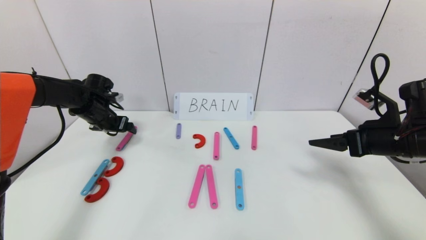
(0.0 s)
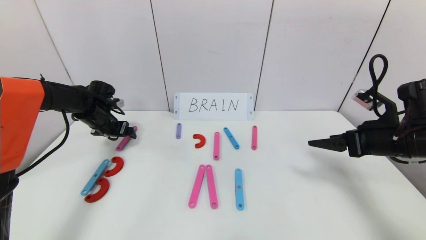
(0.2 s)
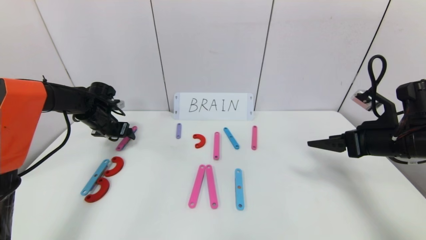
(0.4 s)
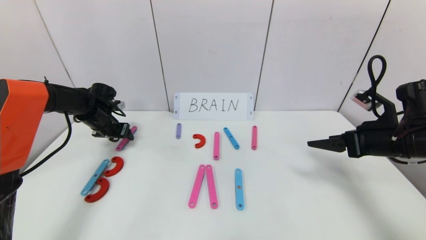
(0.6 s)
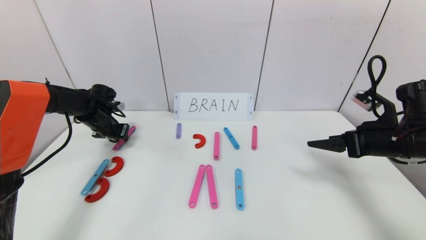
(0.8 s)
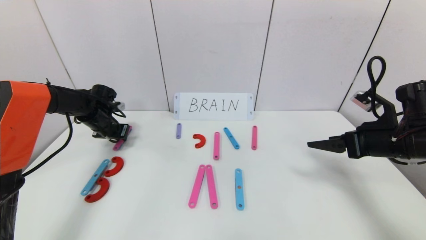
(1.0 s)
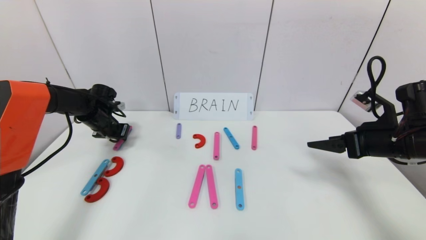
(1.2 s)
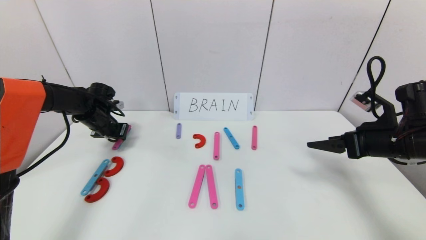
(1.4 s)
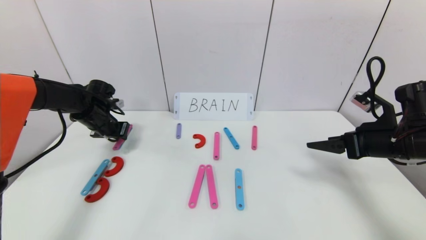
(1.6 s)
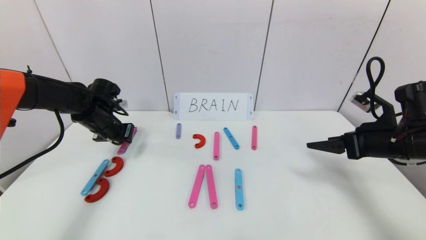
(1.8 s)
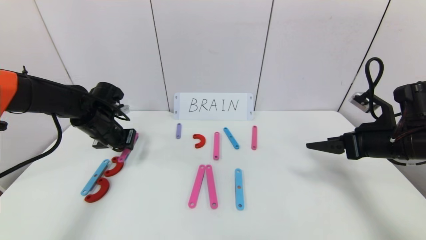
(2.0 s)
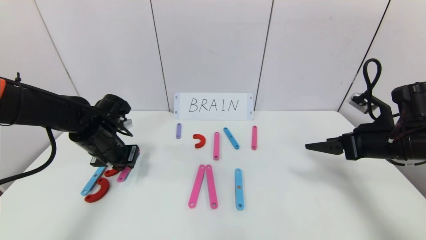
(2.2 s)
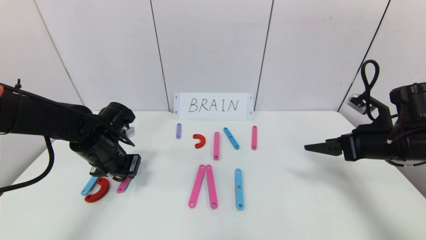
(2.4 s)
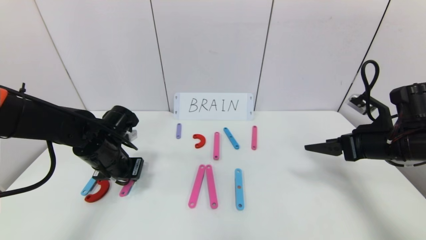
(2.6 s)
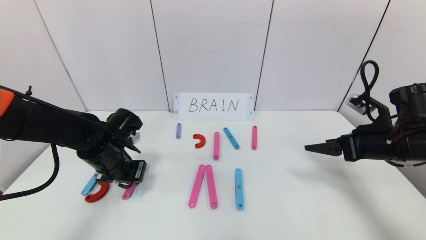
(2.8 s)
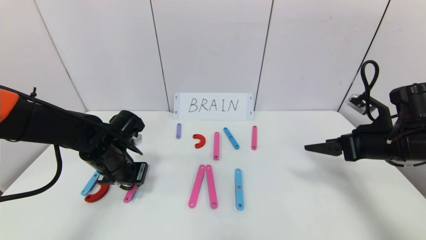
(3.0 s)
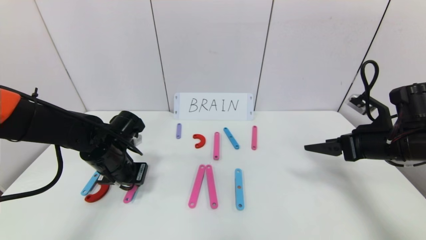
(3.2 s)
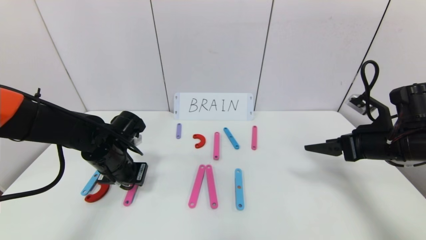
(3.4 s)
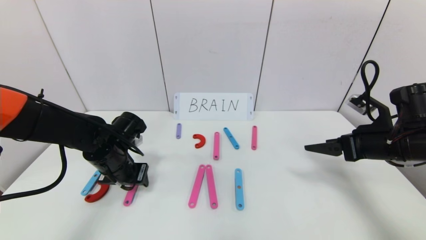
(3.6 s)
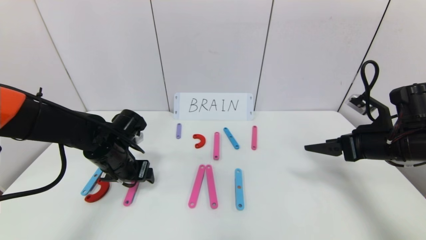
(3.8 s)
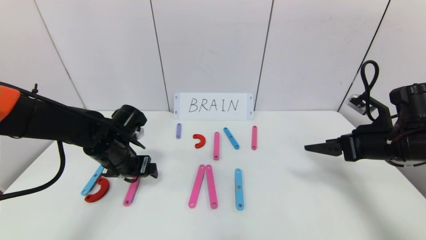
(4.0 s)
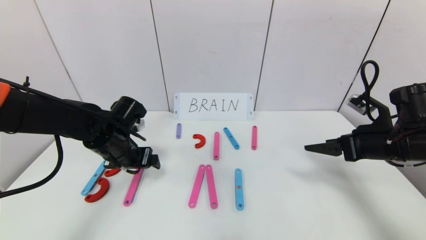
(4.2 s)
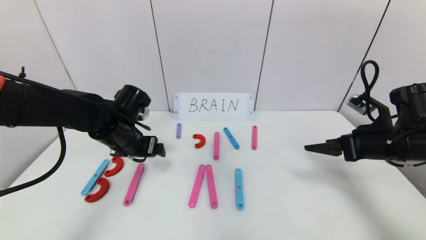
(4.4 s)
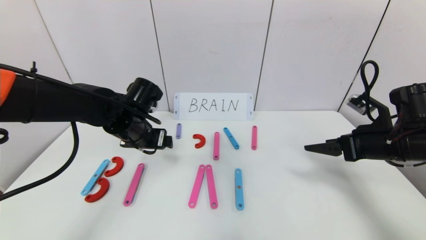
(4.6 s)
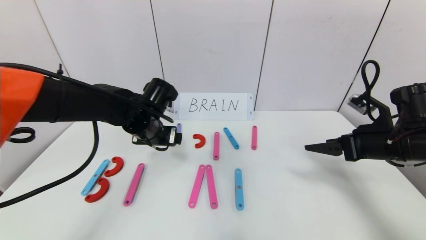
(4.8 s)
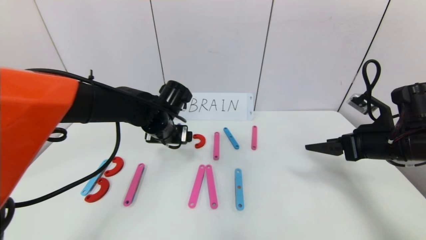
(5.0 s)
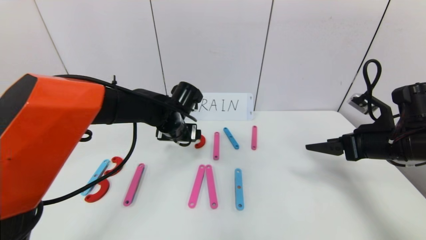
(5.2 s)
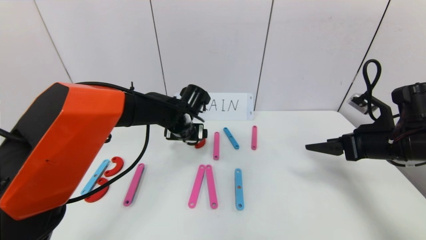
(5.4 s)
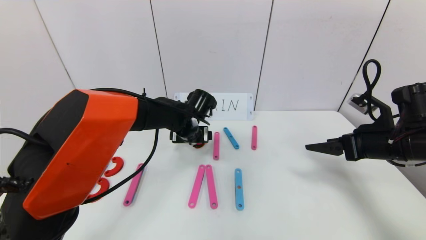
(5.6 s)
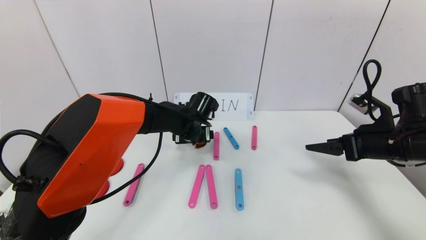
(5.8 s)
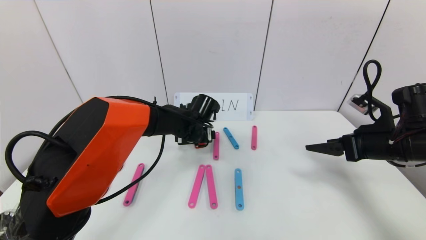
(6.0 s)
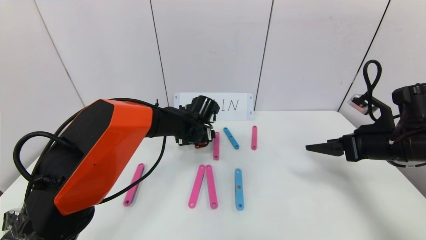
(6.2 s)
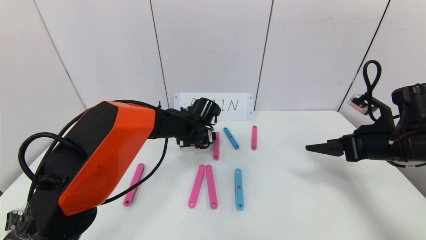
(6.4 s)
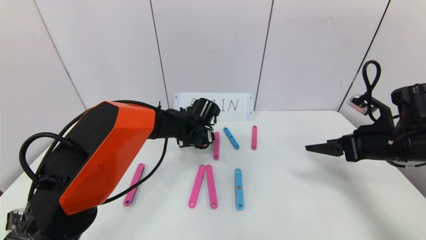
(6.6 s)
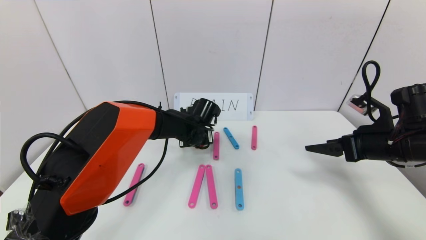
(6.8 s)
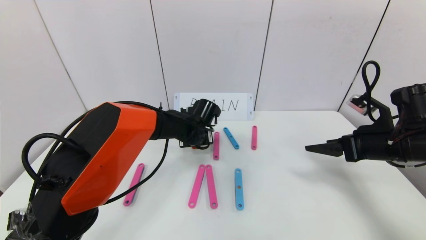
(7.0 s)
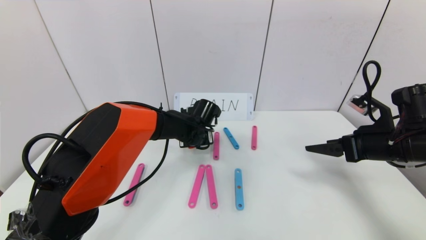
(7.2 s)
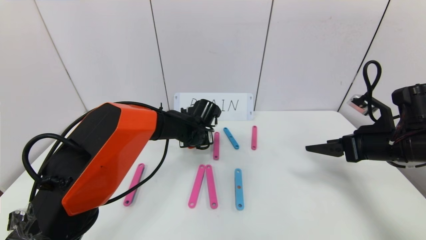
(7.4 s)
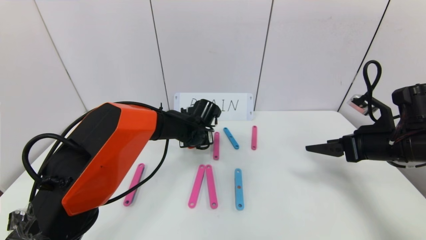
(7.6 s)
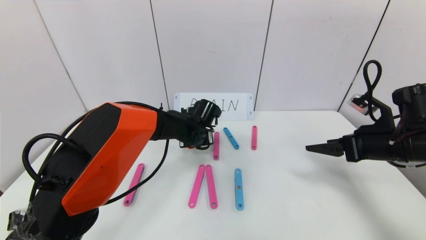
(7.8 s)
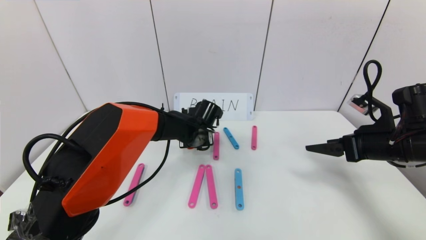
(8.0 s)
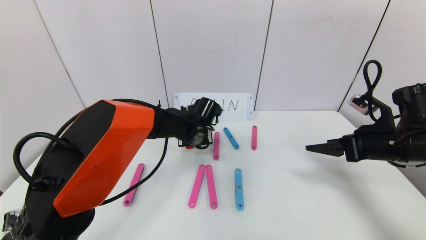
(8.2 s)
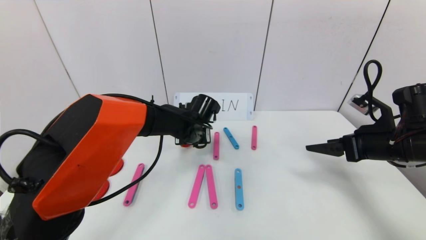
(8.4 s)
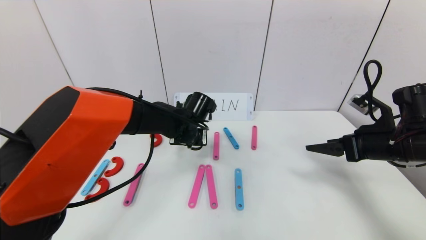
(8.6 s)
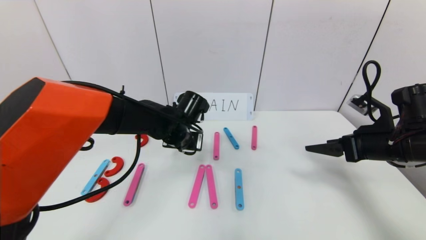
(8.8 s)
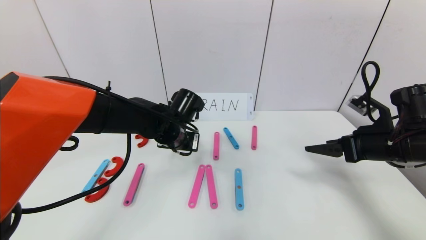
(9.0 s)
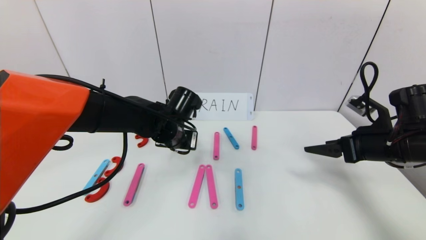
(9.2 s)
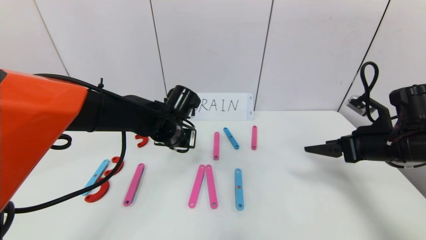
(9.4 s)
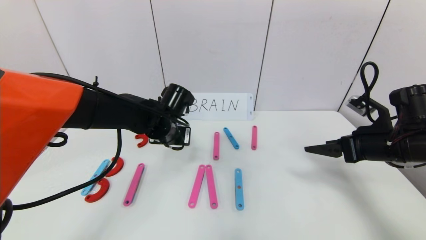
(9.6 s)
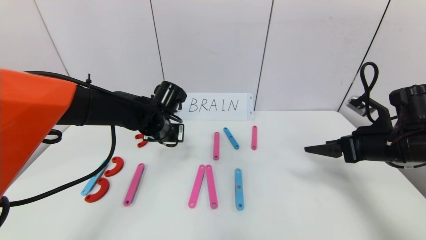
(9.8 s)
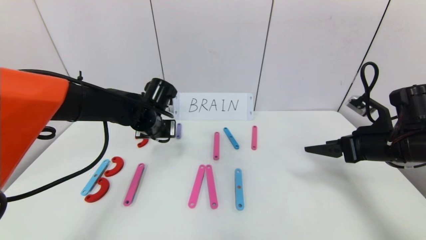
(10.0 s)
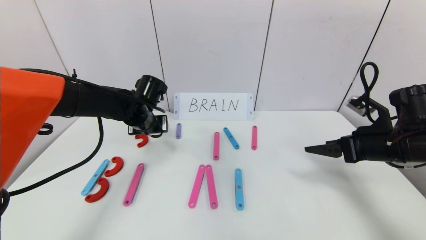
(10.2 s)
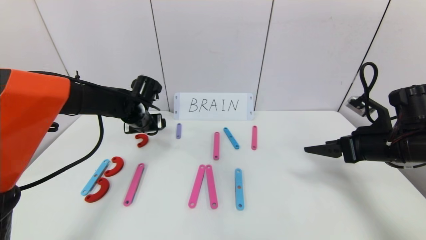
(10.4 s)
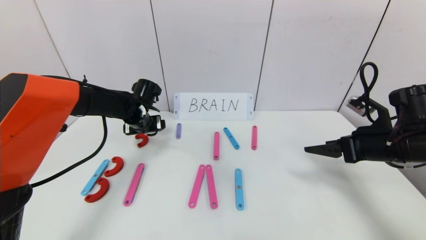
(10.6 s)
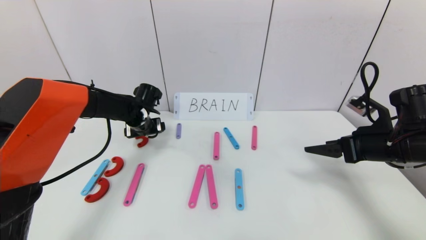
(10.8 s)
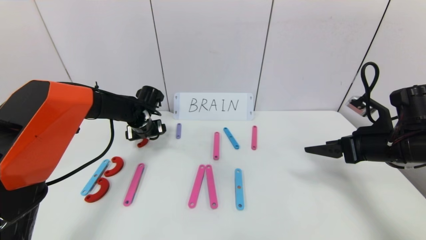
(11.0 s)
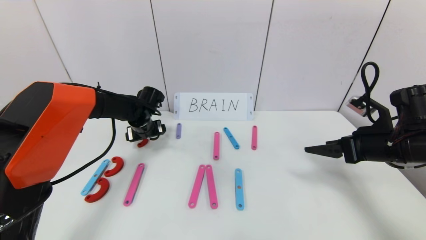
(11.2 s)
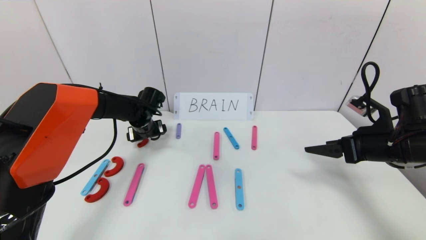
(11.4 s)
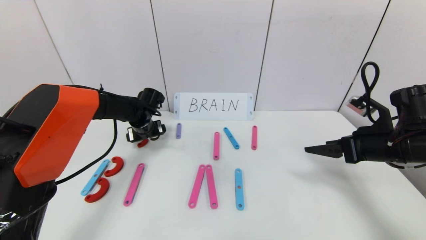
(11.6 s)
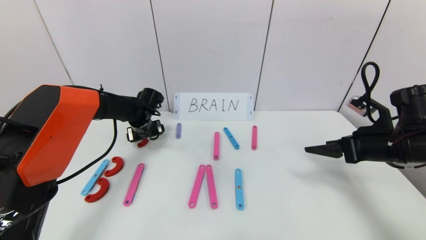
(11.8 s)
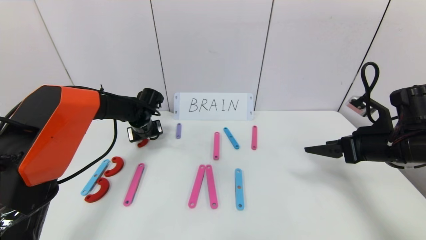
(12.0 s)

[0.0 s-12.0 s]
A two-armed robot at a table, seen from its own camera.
Task of the whole recording: rearrange the word baai as brain.
0.0 to 1.6 s: The left gripper closes.
1.6 to 3.0 s: The left gripper shifts approximately 15 cm backward and to the right.
3.0 to 4.4 s: The left gripper heads upward, covering about 5 cm, and opens.
4.4 to 6.0 s: The left gripper heads to the right, forward and downward, covering about 15 cm.
6.0 to 7.6 s: The left gripper closes up.
7.6 to 9.0 s: The left gripper goes some 10 cm backward and upward.
9.0 to 10.4 s: The left gripper heads to the left and forward, covering some 10 cm, and opens up.
10.4 to 12.0 s: The left gripper ends up about 5 cm from where it was.

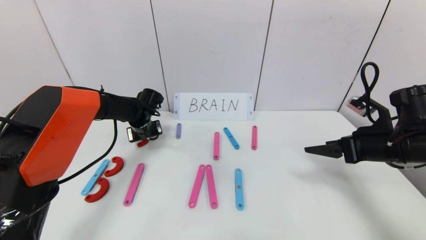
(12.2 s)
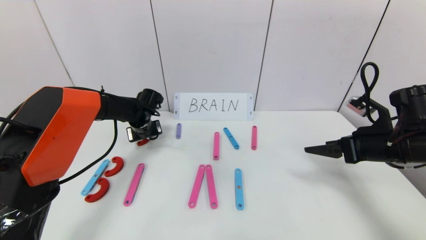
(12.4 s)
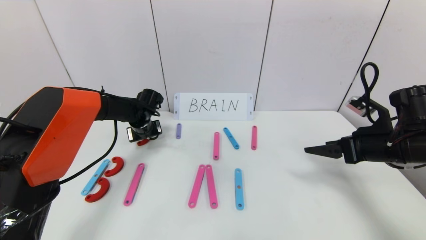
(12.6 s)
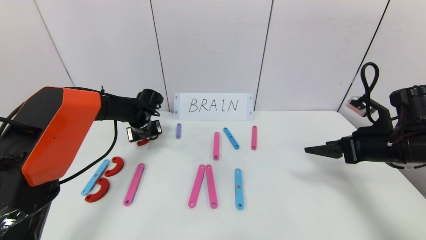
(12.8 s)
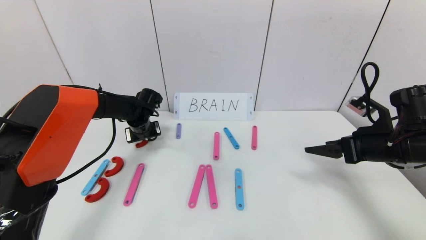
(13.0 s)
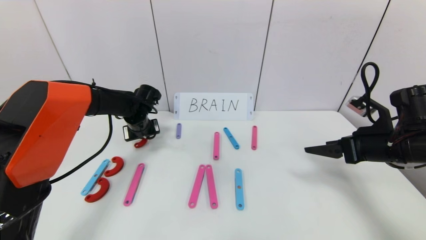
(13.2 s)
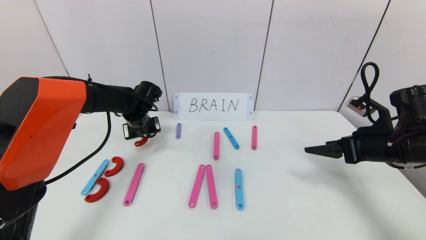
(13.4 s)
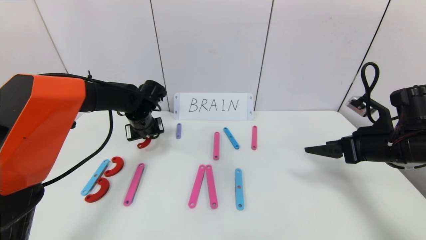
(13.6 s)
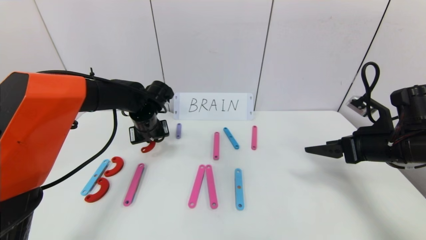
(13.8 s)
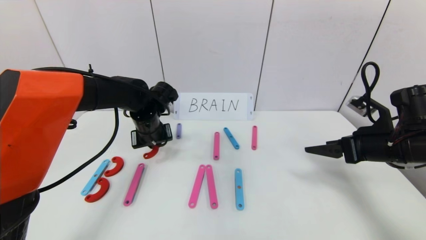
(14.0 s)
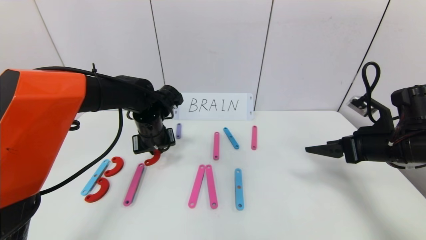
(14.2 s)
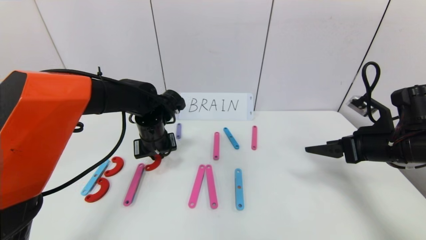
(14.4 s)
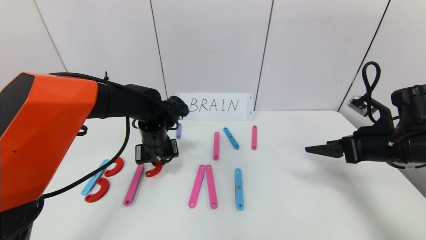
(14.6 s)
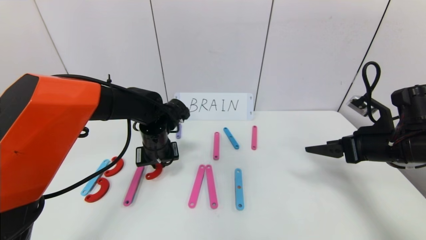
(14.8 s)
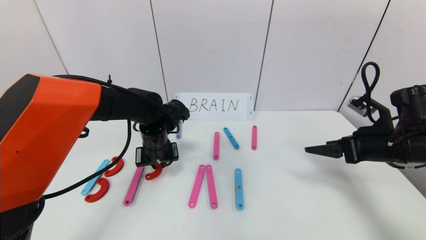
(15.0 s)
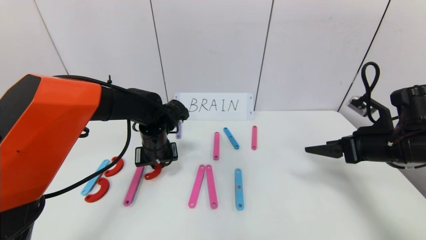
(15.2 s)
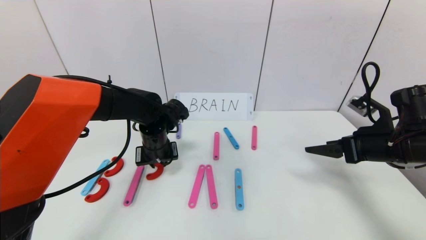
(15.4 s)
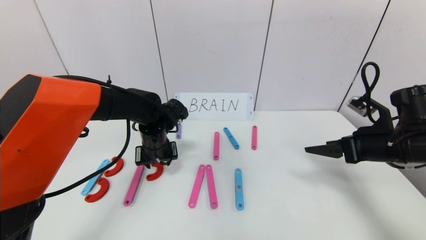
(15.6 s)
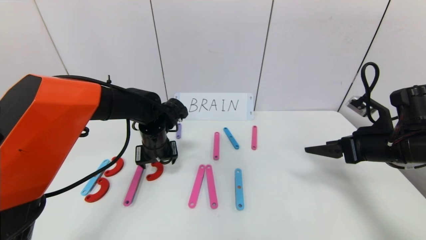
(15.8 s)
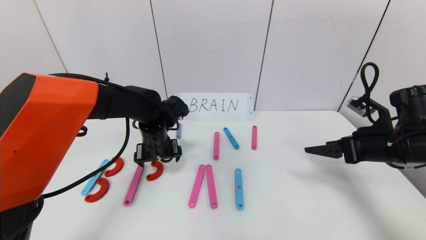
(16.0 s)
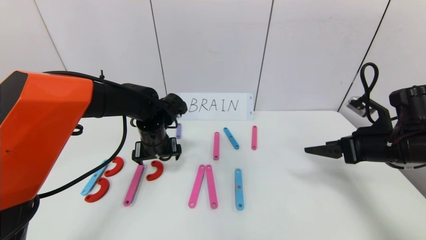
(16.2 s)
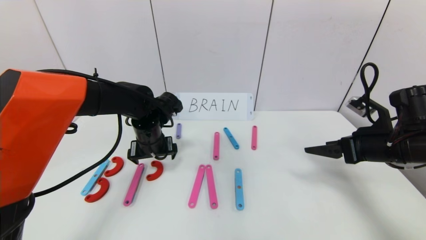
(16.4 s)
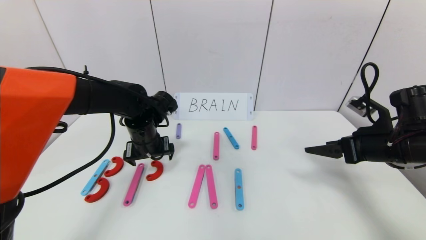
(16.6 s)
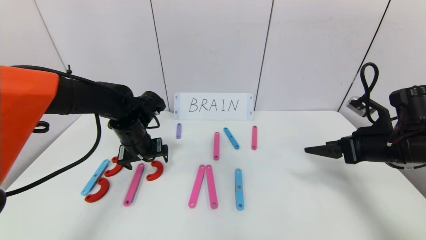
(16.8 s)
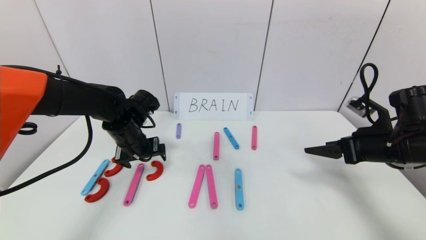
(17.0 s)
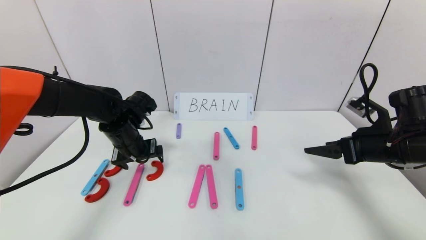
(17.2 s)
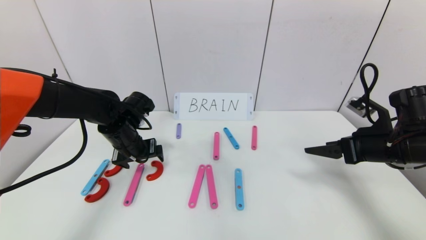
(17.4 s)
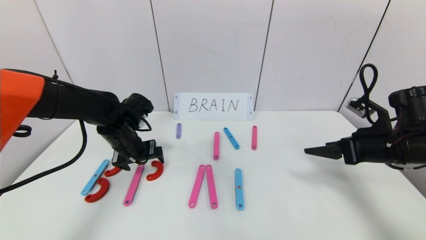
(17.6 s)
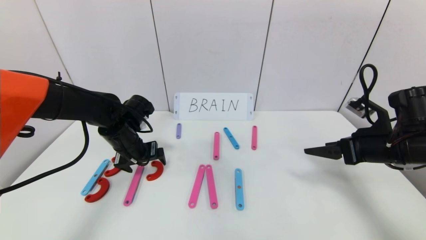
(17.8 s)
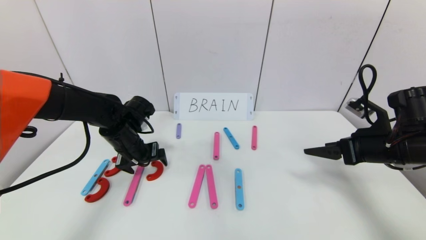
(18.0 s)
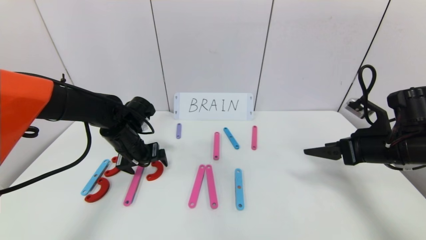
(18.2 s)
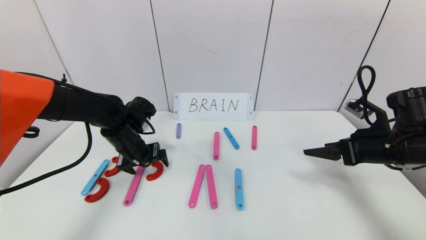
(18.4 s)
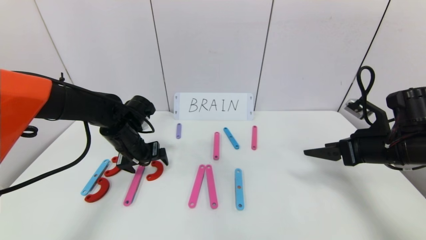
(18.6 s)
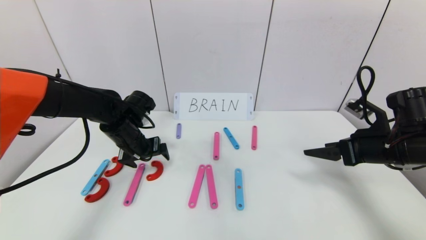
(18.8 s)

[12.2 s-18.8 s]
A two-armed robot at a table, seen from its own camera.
Task of the whole recording: rearrange the word baai as brain.
12.2 to 13.8 s: The left gripper moves backward, about 5 cm.
13.8 to 15.4 s: The left gripper changes place by approximately 5 cm.
15.4 to 17.2 s: The left gripper shifts approximately 5 cm to the left, and opens its fingers.
17.2 to 18.8 s: There are only small adjustments of the grippers.
